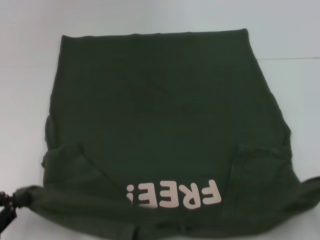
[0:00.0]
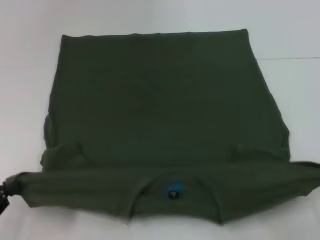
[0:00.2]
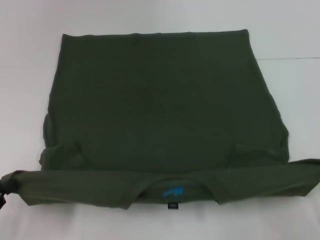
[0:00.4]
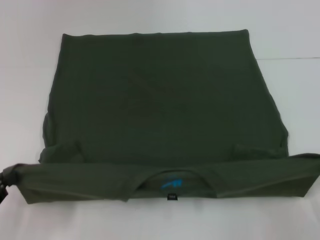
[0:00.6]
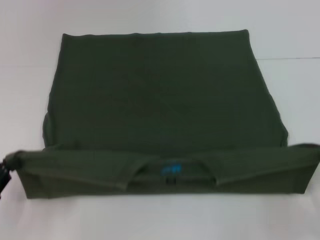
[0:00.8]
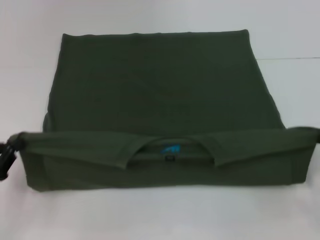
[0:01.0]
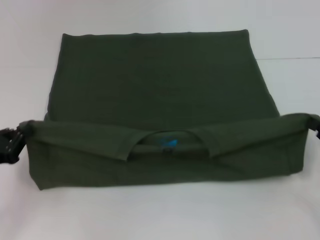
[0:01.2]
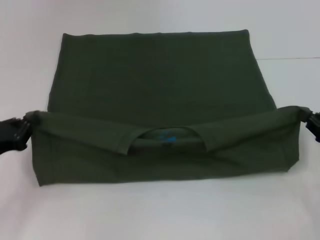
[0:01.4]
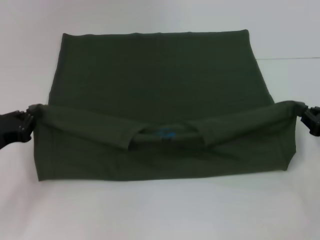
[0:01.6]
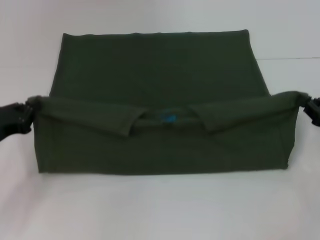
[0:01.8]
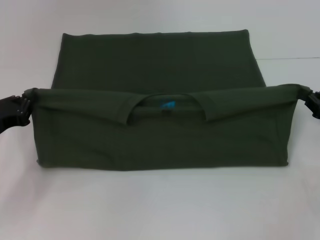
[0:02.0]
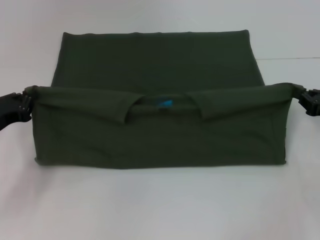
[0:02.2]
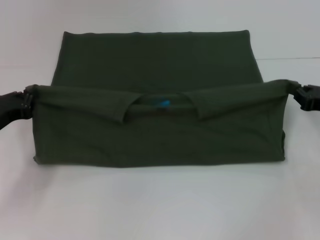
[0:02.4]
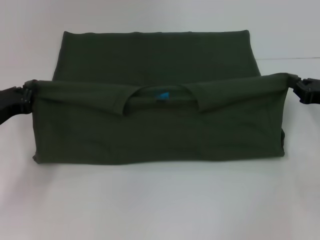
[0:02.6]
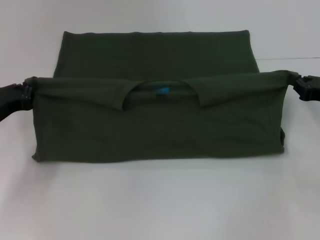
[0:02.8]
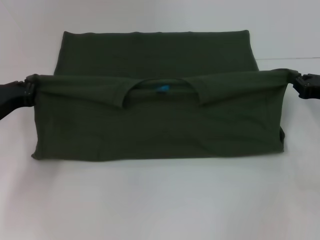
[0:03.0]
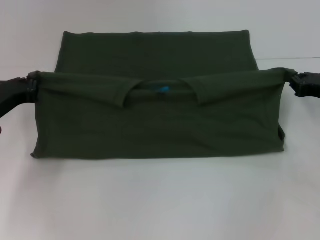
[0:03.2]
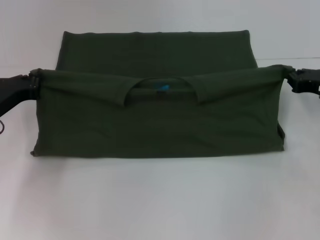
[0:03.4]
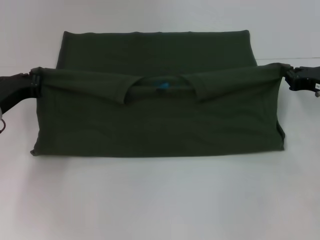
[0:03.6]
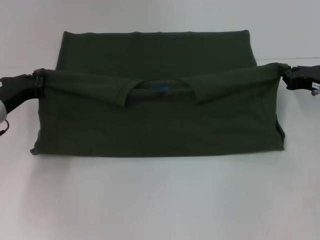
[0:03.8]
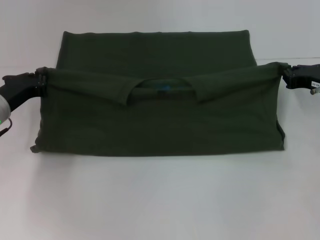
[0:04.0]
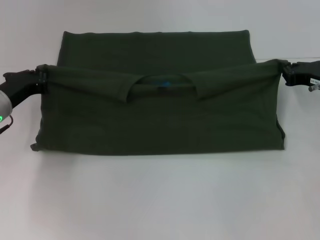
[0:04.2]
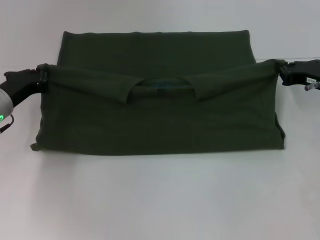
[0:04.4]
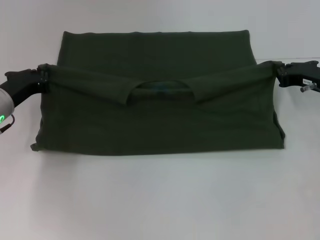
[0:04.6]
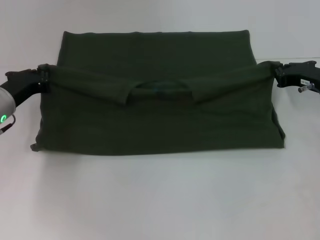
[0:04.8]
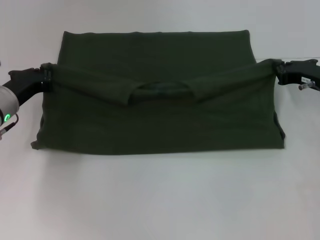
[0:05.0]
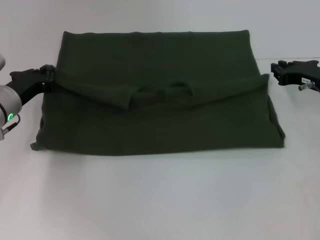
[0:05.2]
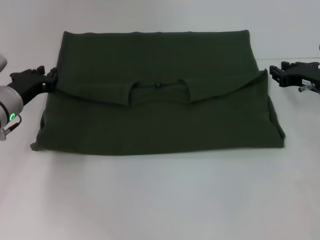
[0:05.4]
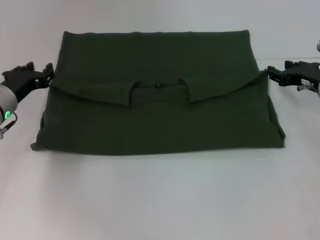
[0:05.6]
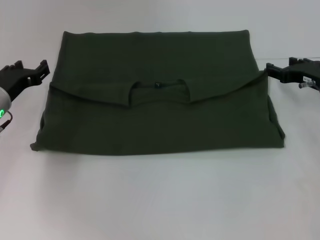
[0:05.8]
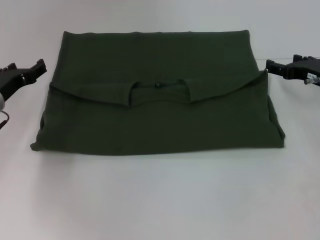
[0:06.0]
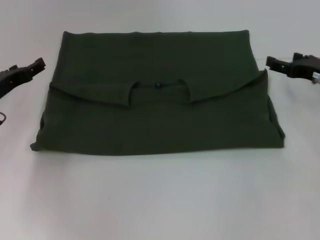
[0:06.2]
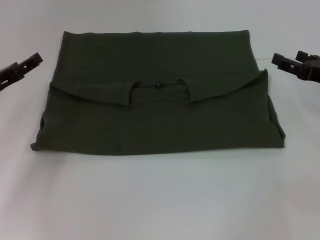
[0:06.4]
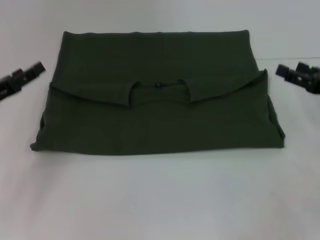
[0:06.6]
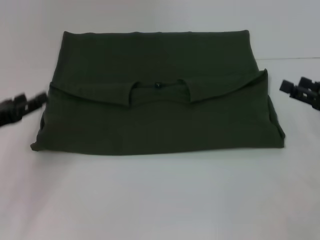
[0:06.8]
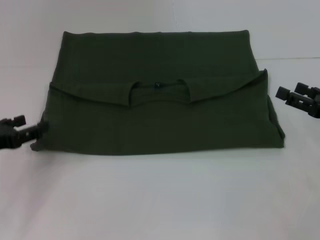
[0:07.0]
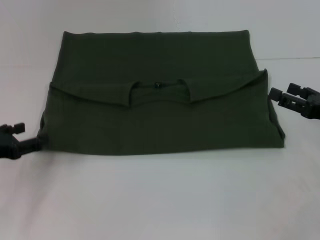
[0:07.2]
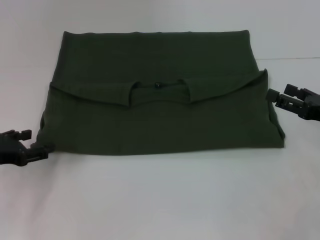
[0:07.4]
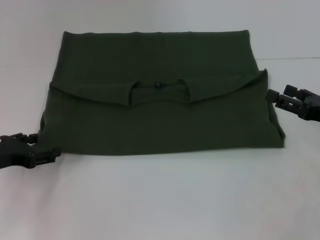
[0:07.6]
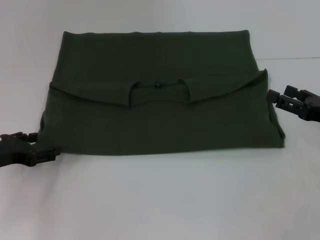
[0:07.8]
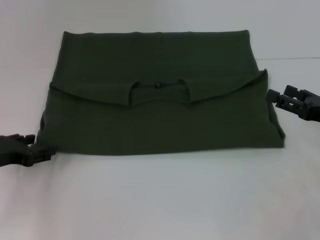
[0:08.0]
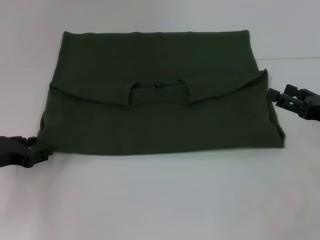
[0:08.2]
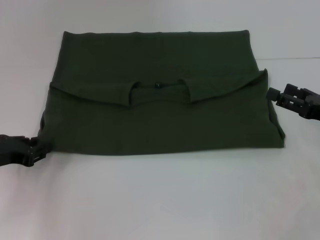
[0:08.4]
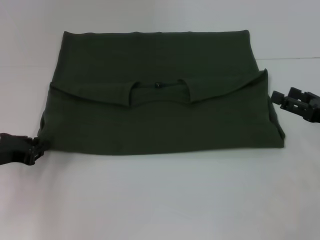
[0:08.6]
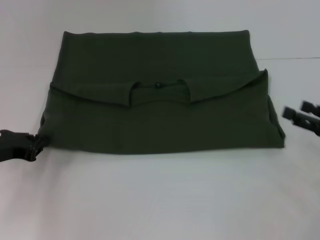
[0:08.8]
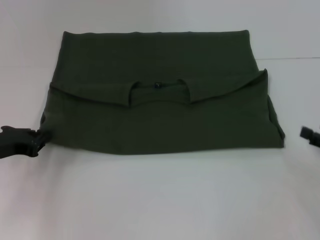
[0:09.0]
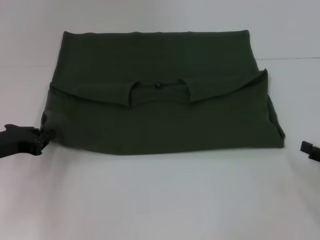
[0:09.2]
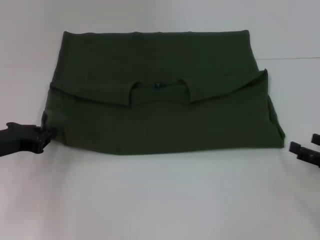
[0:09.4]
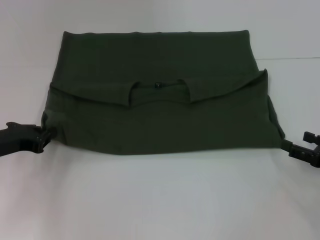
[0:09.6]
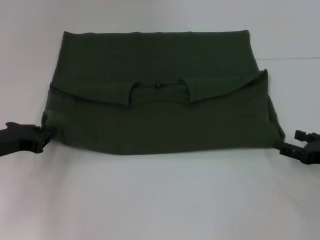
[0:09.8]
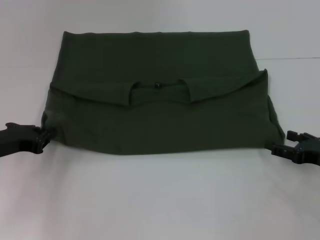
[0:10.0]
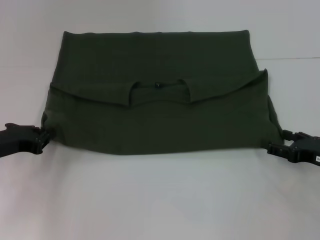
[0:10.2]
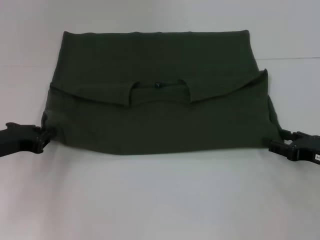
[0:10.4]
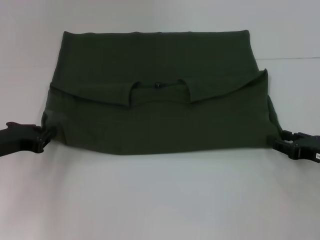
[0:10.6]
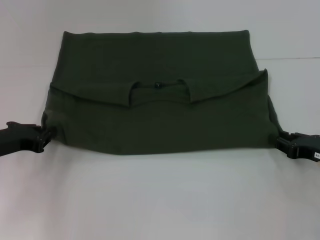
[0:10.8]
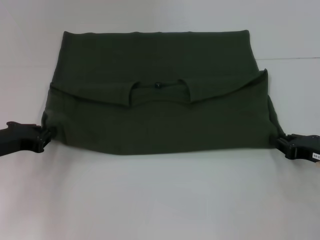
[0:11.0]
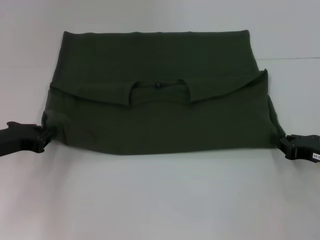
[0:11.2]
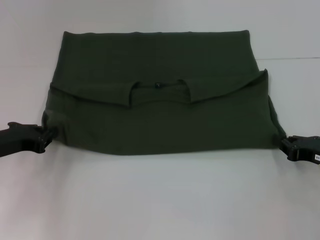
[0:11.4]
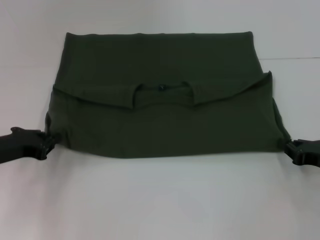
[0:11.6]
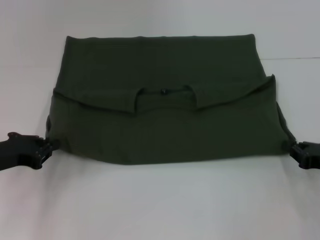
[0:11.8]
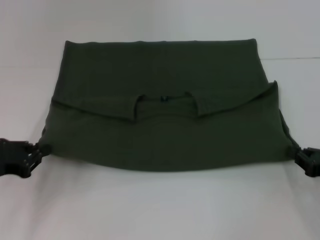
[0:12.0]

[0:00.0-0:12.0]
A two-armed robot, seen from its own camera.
Step, 0:00.0 to 0:05.4: Fold the clothes with your left hand.
Step, 0:00.0 to 0:05.4: Fold the clothes with your right hand.
0:00.0 to 0:01.6: Both grippers move forward, about 15 cm.
0:01.6 to 0:03.0: Both grippers move forward, some 5 cm.
0:03.0 to 0:04.4: The right gripper moves roughly 5 cm.
0:04.4 to 0:06.0: The right gripper opens its fingers. Meanwhile the left gripper opens up.
0:06.0 to 0:07.6: Both grippers travel together backward, approximately 10 cm.
0:07.6 to 0:09.0: The right gripper shifts by some 5 cm. Meanwhile the left gripper closes its fingers.
0:09.0 to 0:10.4: The right gripper moves to the left, approximately 5 cm.
0:10.4 to 0:12.0: The right gripper closes its fingers.

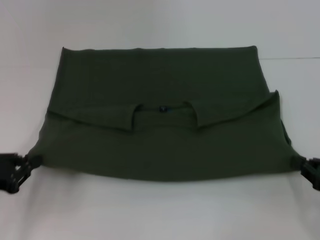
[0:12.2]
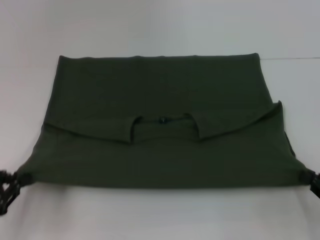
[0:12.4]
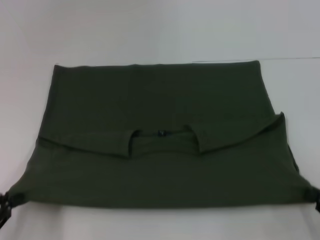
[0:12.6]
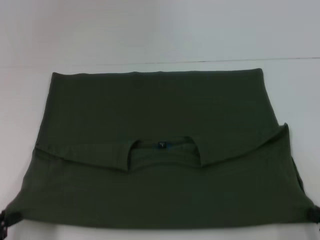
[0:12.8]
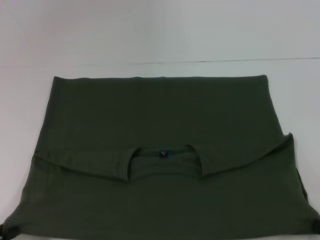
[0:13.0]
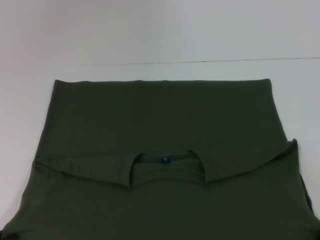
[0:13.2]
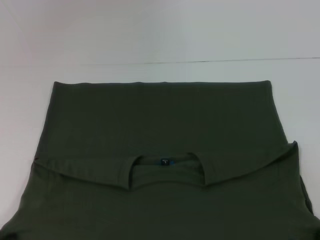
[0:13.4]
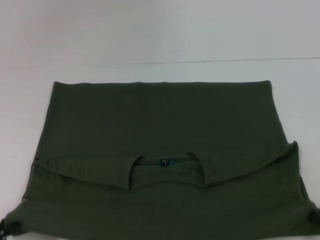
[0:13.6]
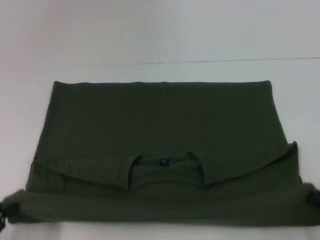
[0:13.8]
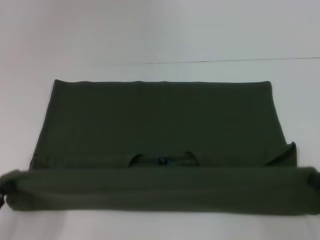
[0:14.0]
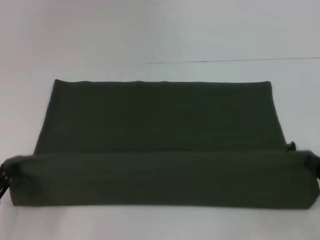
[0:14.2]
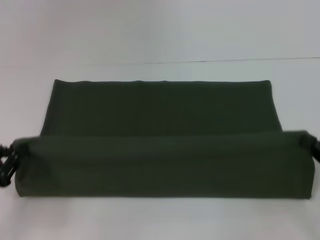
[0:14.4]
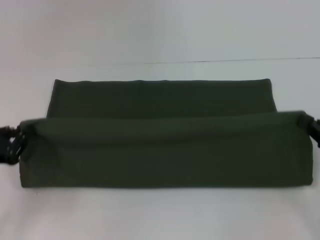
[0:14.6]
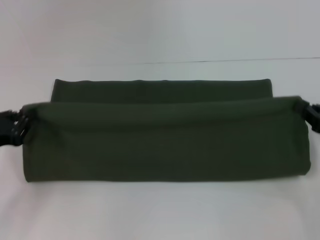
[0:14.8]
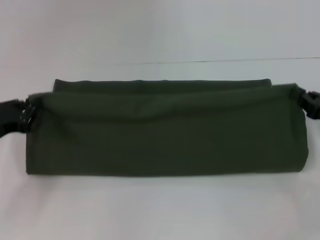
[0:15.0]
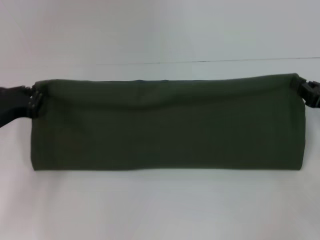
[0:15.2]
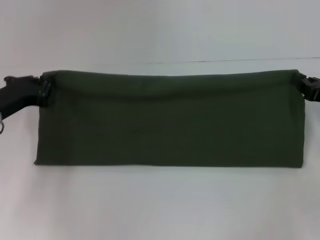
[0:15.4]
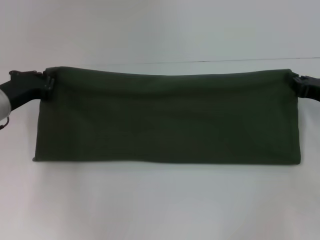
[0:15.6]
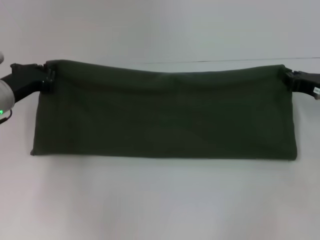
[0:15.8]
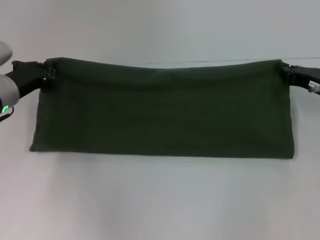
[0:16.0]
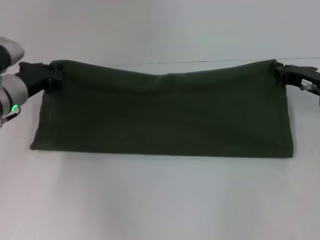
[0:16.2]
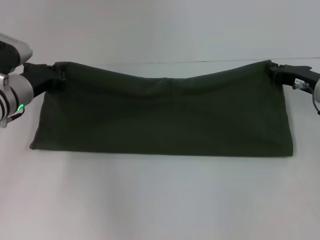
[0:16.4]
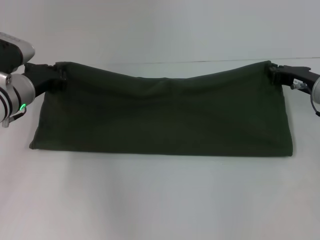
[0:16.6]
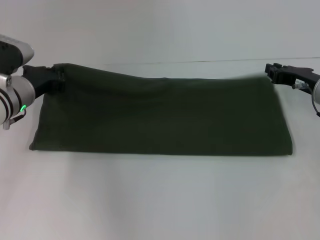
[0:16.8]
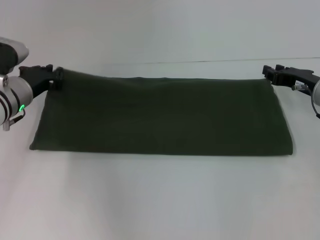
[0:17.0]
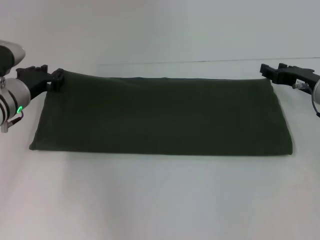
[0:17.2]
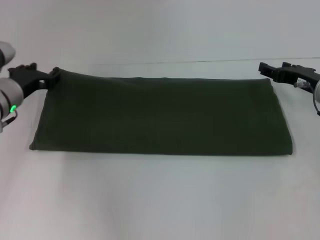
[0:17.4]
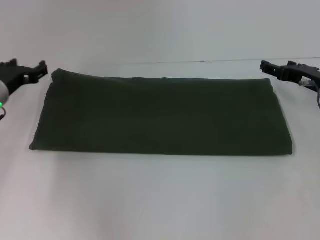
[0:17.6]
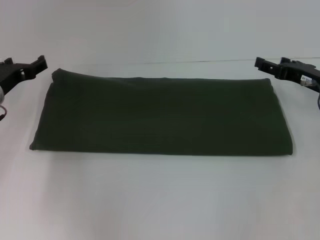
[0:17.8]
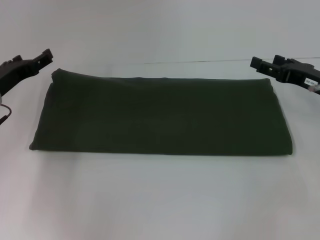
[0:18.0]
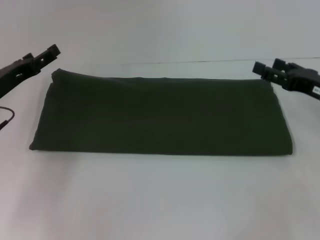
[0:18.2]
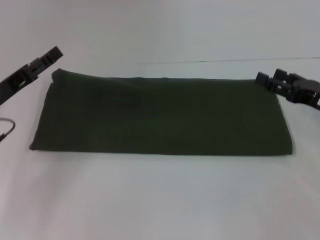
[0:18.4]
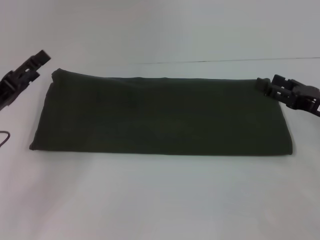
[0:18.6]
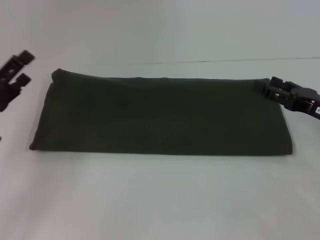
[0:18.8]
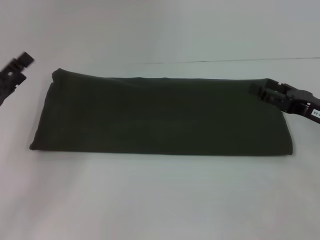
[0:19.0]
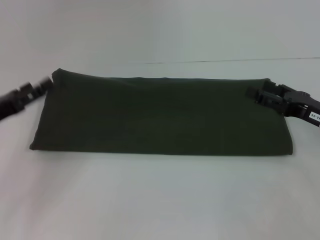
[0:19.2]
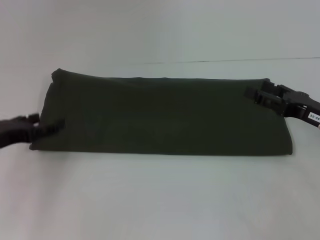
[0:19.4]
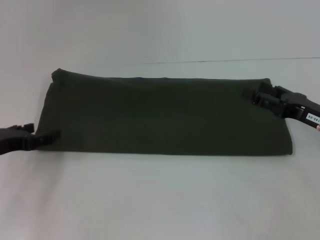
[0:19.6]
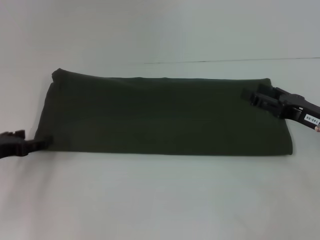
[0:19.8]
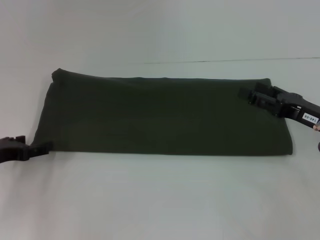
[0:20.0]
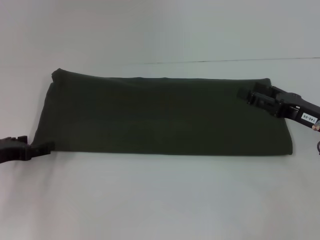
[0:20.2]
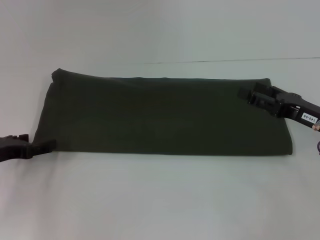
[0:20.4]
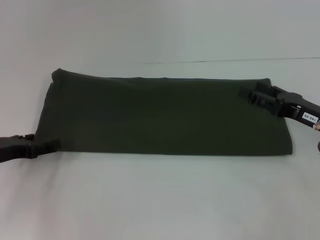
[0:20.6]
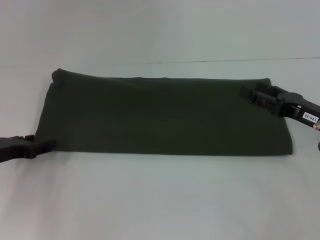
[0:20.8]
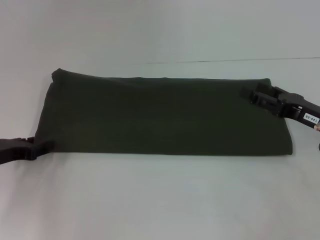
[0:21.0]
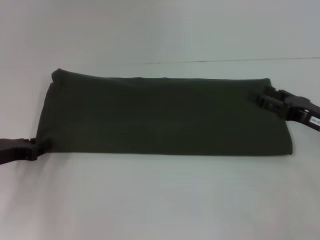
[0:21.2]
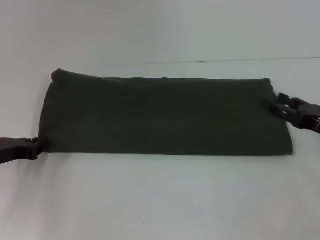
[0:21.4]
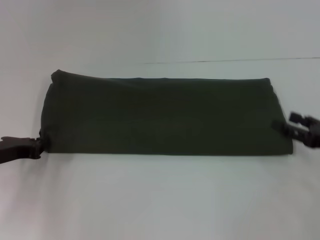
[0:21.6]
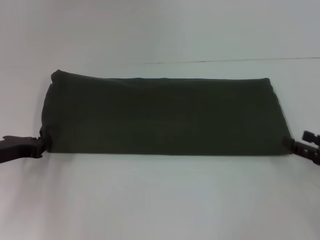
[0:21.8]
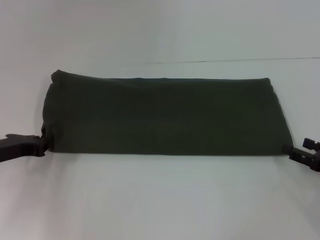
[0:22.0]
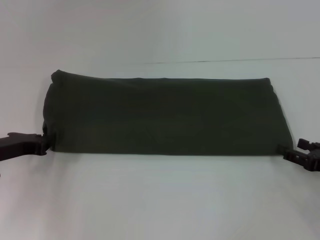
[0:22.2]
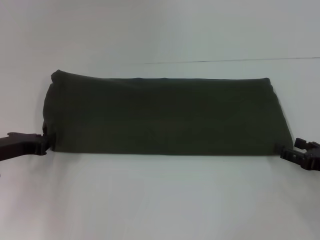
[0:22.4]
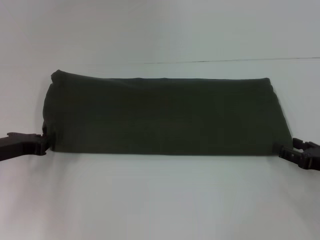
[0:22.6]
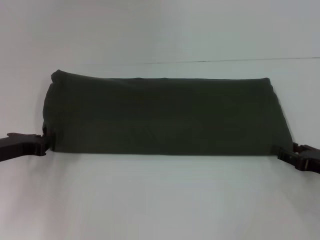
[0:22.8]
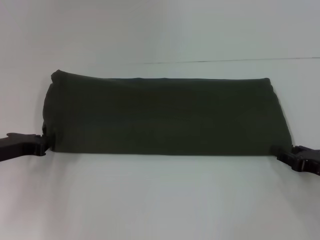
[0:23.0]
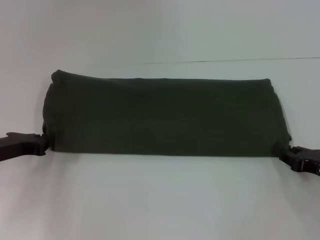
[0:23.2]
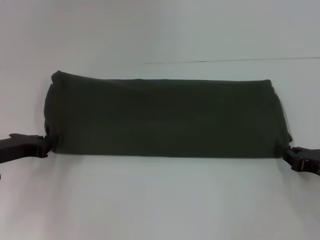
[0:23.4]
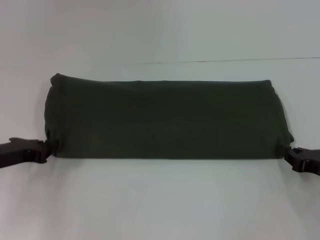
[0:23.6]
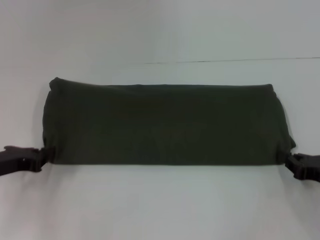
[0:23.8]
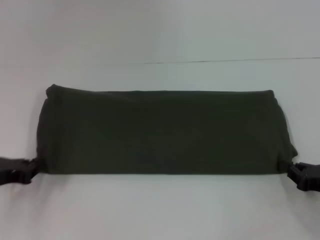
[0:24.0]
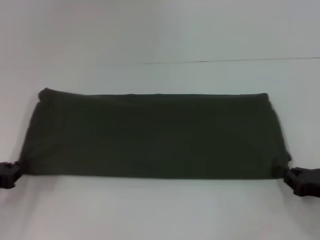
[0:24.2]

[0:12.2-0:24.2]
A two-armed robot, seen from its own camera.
Step, 0:13.2 to 0:17.0: Fold the clothes with your right hand.
0:12.2 to 0:13.8: The two grippers go approximately 10 cm backward.
0:13.8 to 0:15.2: The grippers both shift forward by roughly 20 cm.
0:15.2 to 0:16.6: The right gripper goes roughly 10 cm forward and to the left; the left gripper heads forward and to the right, covering about 10 cm.
0:16.6 to 0:18.2: The grippers both shift backward by some 5 cm. The left gripper opens. The right gripper opens.
0:18.2 to 0:19.8: The left gripper shifts by some 5 cm.
0:19.8 to 0:21.2: There are only small adjustments of the grippers.
0:21.2 to 0:22.6: The left gripper closes. The right gripper moves downward, some 5 cm.
0:22.6 to 0:24.2: The left gripper is displaced backward by roughly 5 cm; the right gripper closes up.
